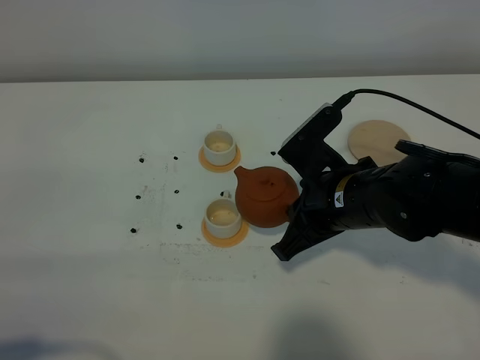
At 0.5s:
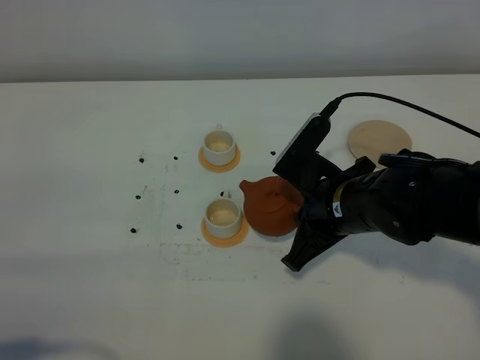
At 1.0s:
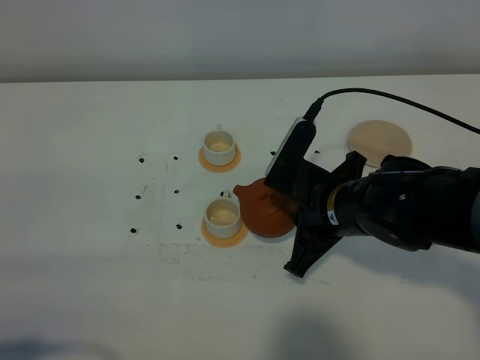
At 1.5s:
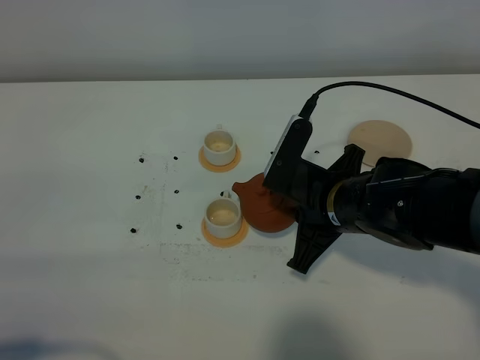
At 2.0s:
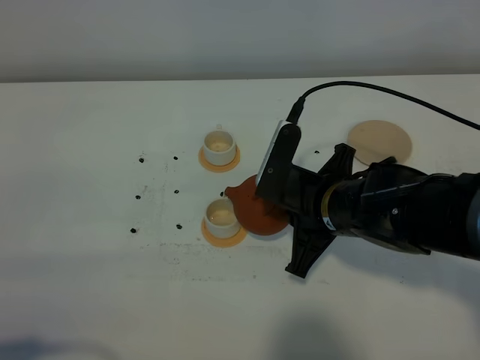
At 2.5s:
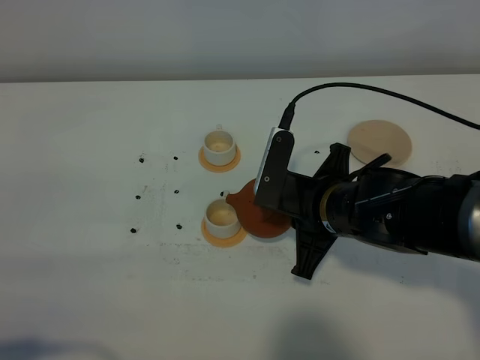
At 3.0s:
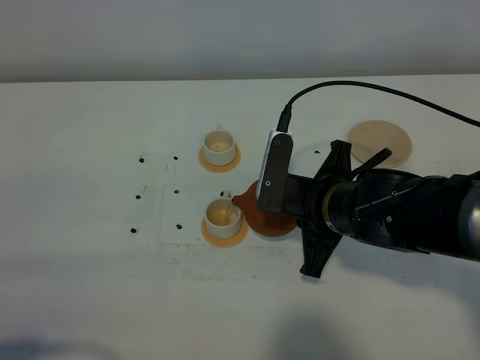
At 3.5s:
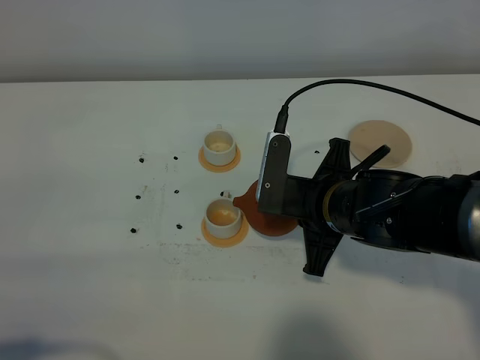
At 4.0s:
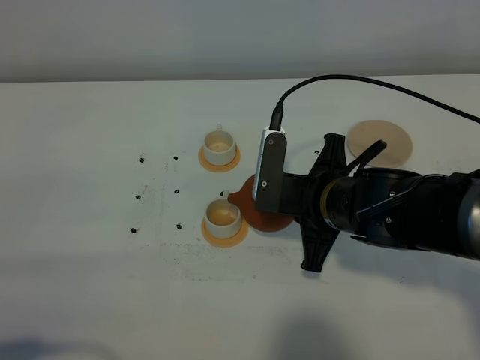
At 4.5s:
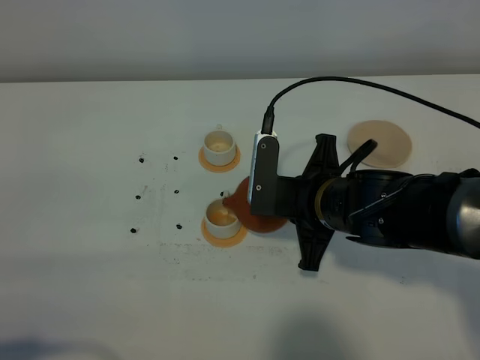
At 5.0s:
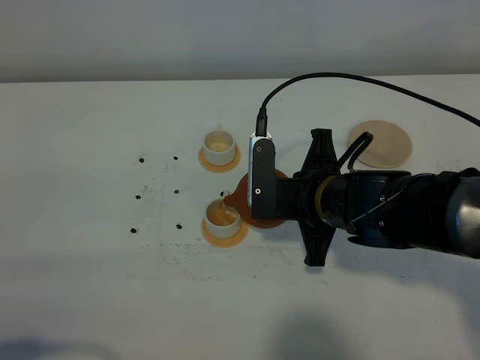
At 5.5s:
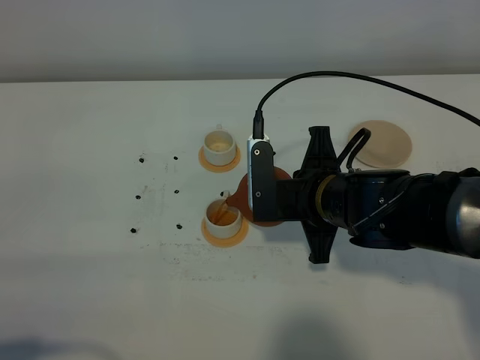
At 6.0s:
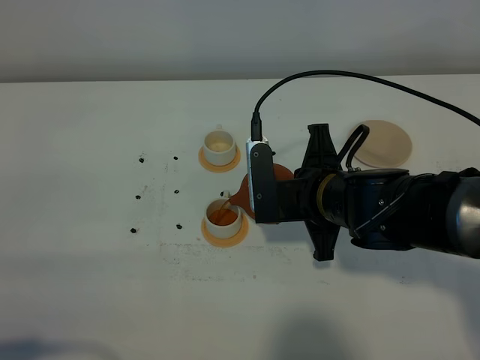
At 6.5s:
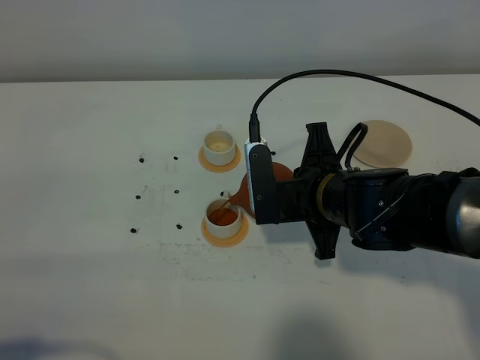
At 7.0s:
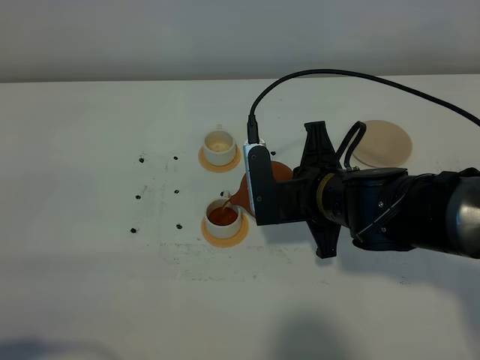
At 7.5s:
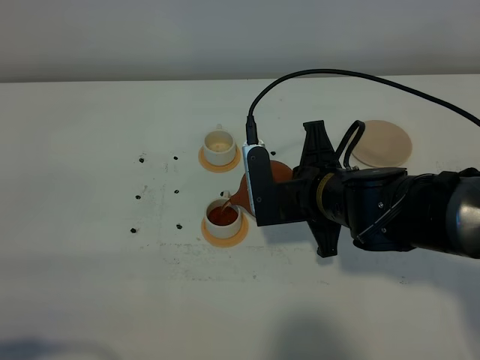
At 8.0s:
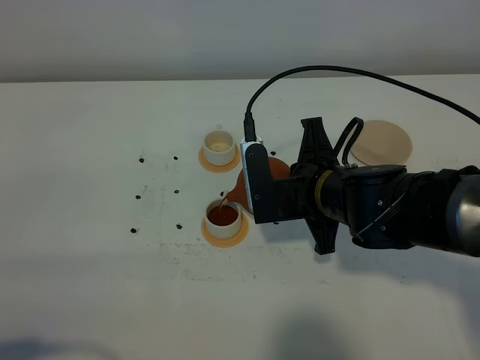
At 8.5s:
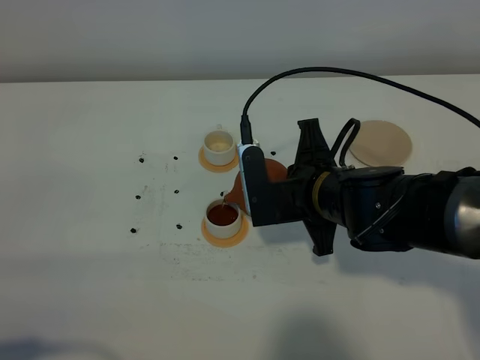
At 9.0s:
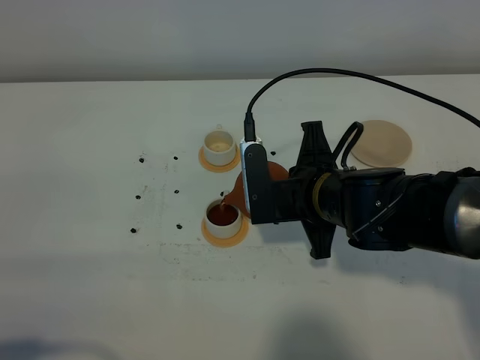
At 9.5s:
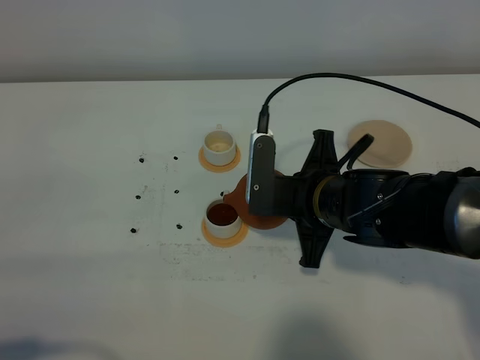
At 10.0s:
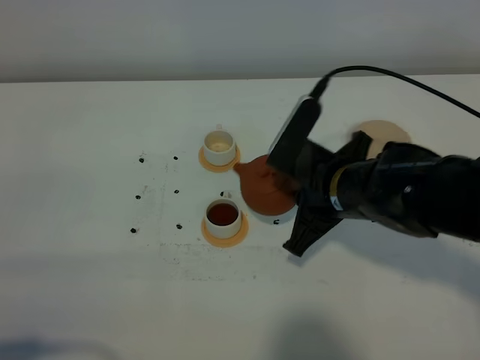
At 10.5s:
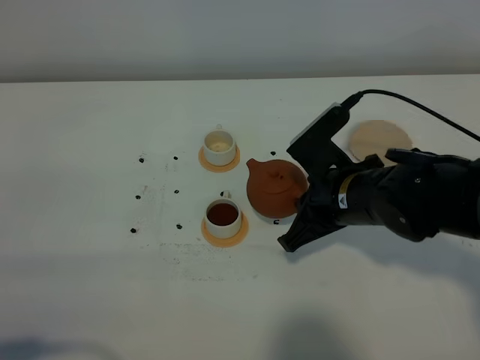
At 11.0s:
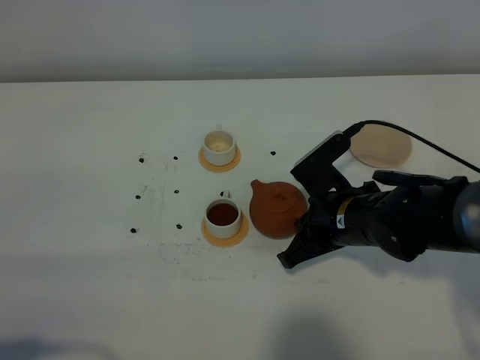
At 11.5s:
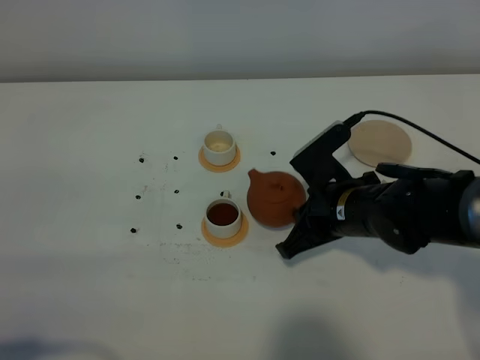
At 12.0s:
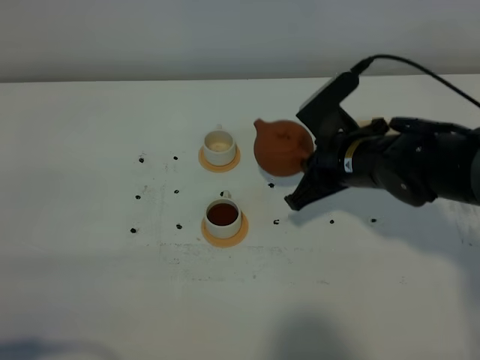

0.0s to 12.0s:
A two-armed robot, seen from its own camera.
Task of the whole recording: grasp the brown teapot and pour the tea into the two white teacups one by one, put the brown teapot back in its original place.
Step, 0.0s to 9.5s: Pour tea into the teacup with the right gripper.
2.0s to 4.0s: The grippers stay close to where they were, moving slightly.
4.0s to 6.0s: The grippers stay close to where they were, moving slightly.
6.0s to 8.0s: The two grippers keep their place.
10.0s to 12.0s: The right gripper heads forward, covering about 5 cm.

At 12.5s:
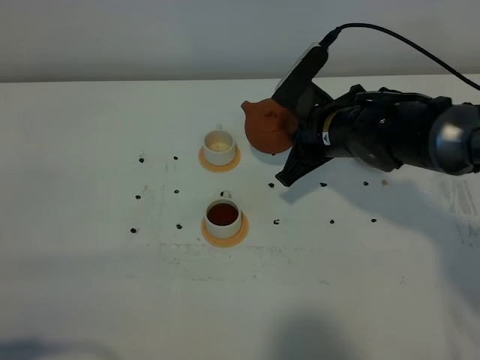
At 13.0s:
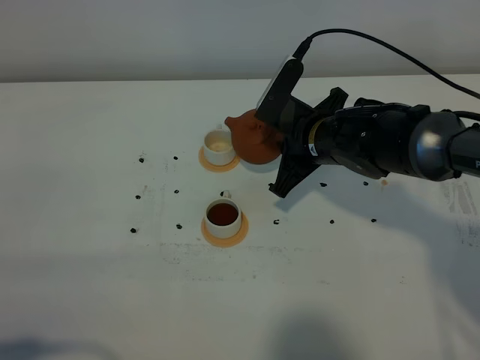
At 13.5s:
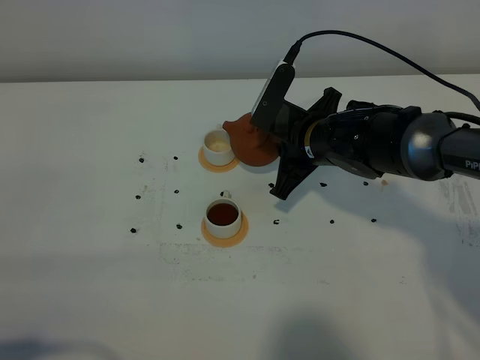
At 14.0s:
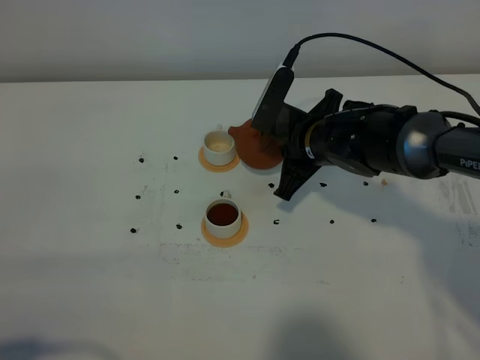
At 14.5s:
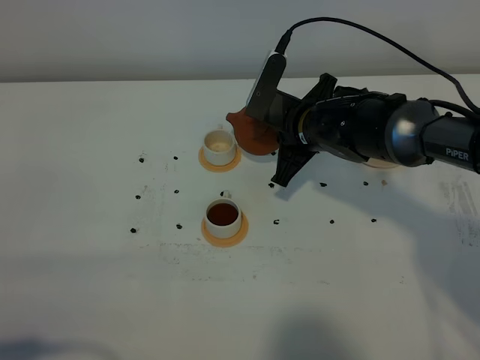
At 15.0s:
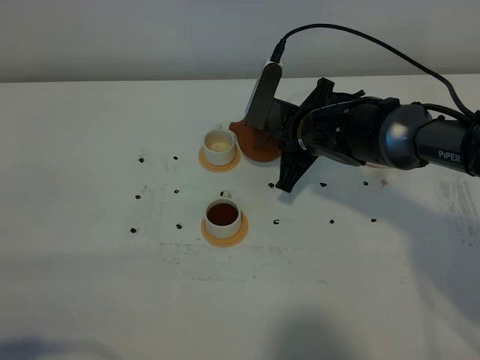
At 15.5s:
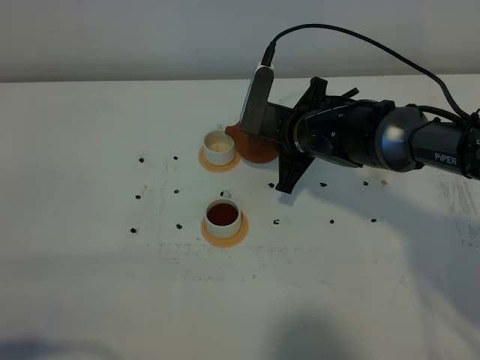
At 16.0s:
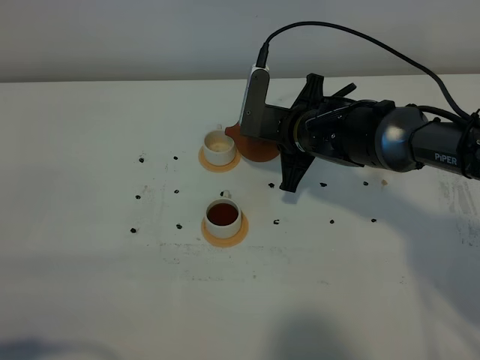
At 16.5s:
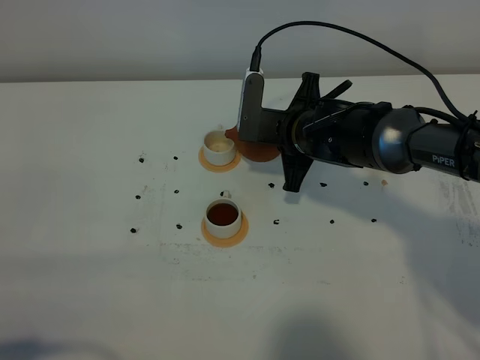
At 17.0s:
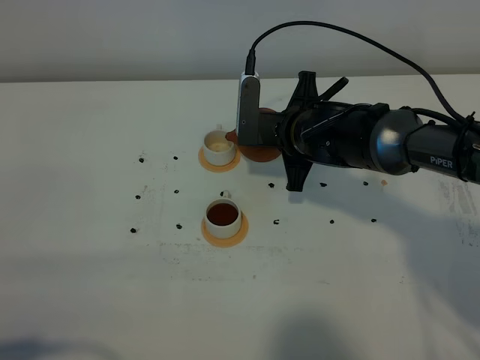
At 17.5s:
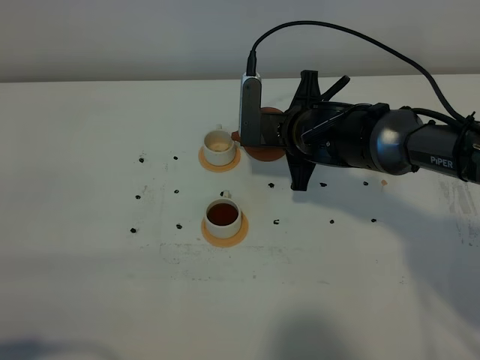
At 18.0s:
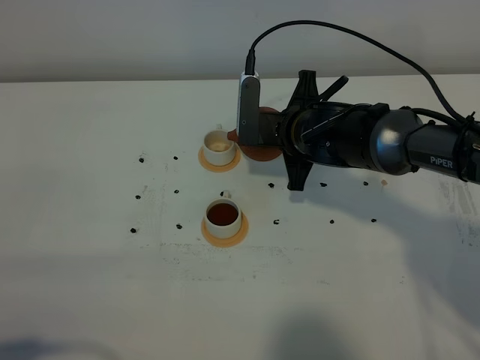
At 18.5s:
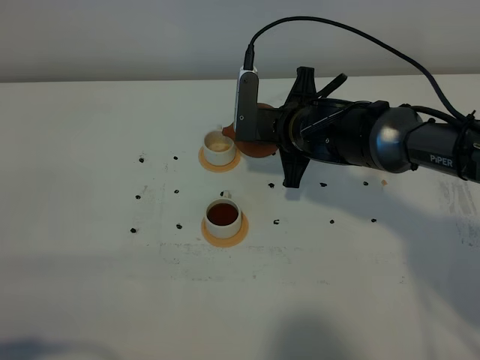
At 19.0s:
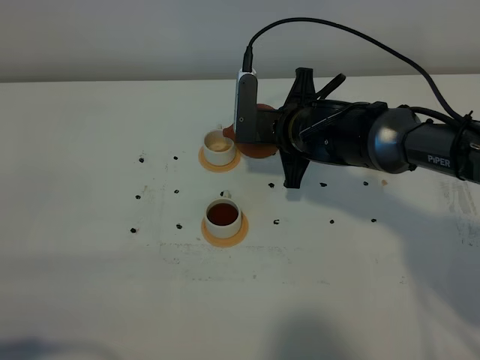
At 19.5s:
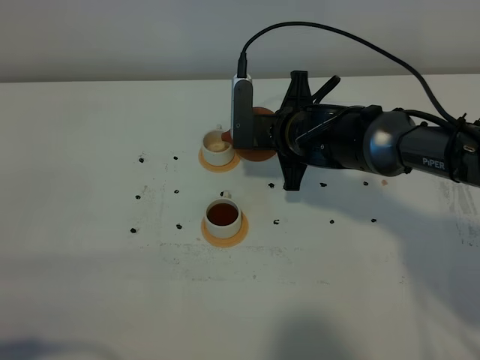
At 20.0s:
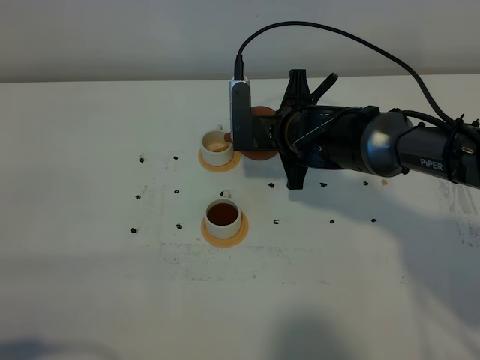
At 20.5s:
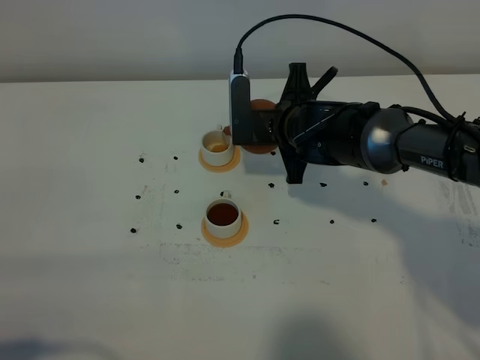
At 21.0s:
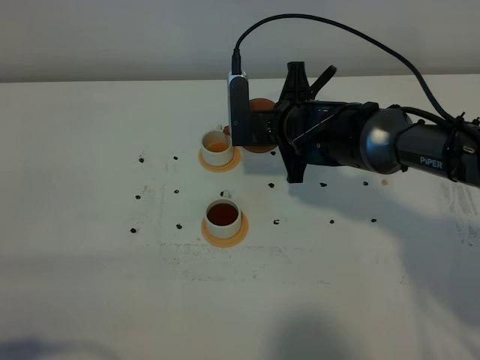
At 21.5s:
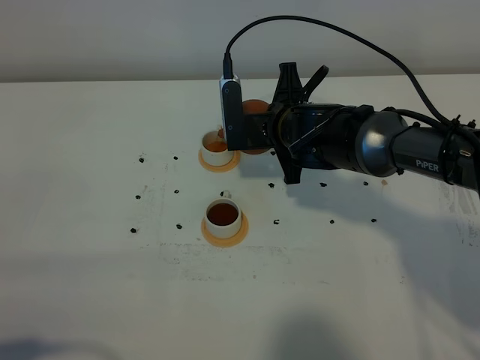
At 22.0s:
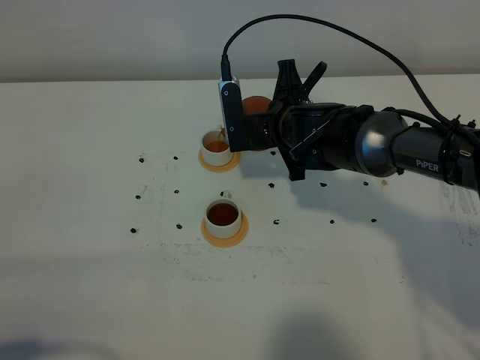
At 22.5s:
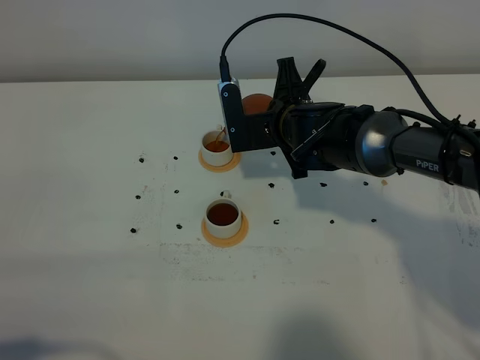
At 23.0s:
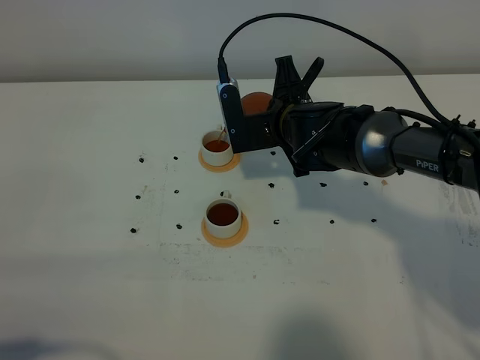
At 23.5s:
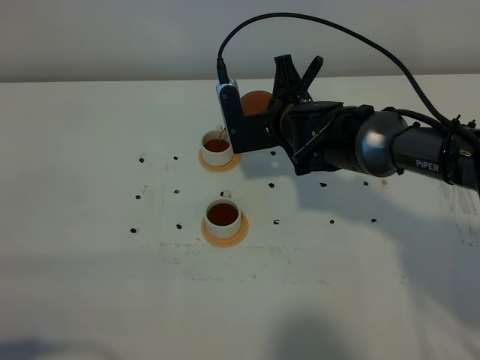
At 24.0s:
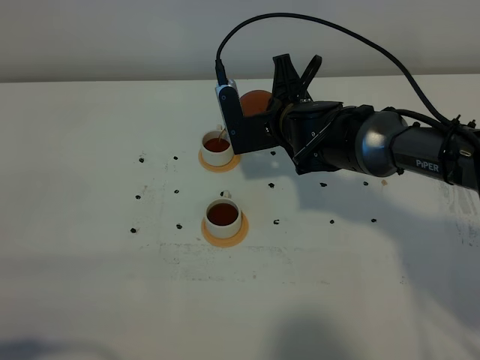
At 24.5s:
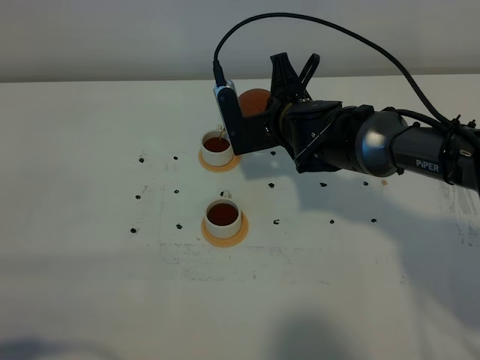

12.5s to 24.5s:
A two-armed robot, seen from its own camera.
Task of the whole recording: grasp the brown teapot and pour the tea into the two white teacups one by one, put the brown teapot back in its original place.
12.5s to 14.5s: The grippers move only a little.
14.5s to 16.5s: There are only small adjustments of the grippers.
16.5s to 20.5s: The grippers stay close to where they were, moving slightly.
20.5s to 24.5s: The grippers stay close to where they were, moving slightly.

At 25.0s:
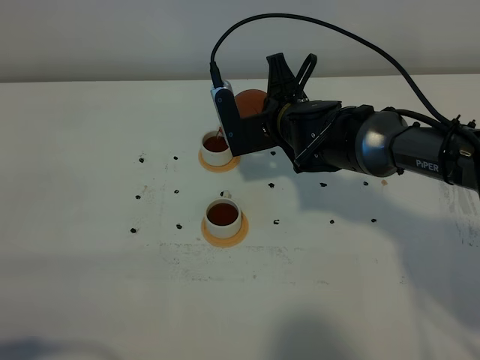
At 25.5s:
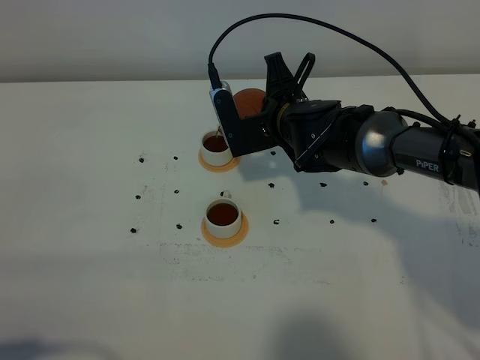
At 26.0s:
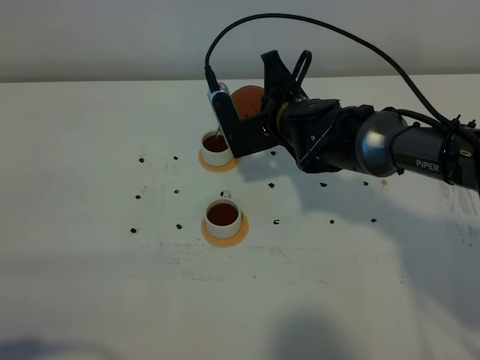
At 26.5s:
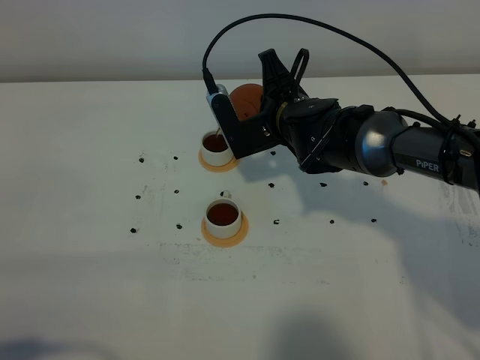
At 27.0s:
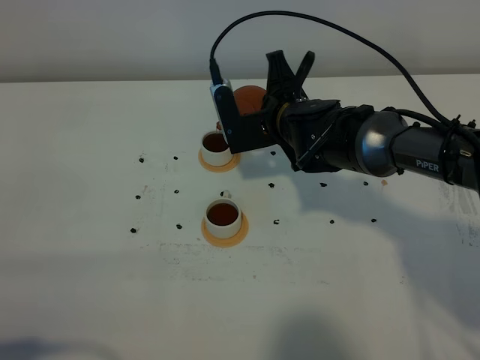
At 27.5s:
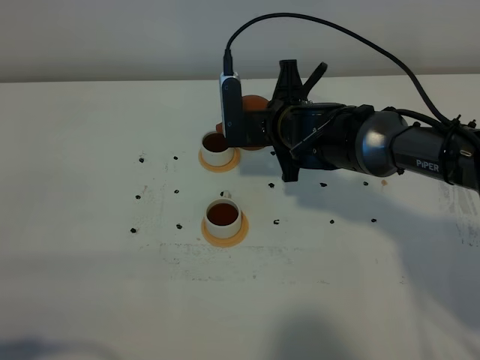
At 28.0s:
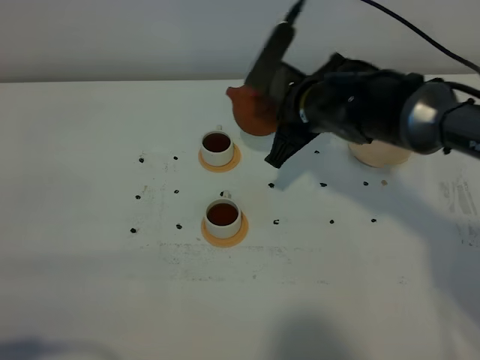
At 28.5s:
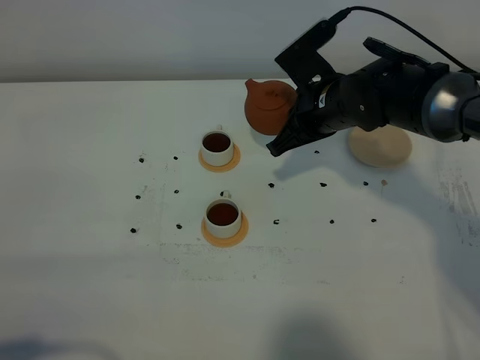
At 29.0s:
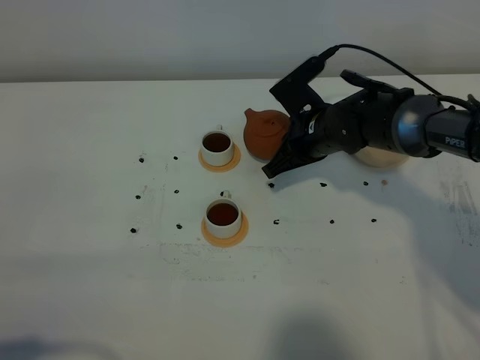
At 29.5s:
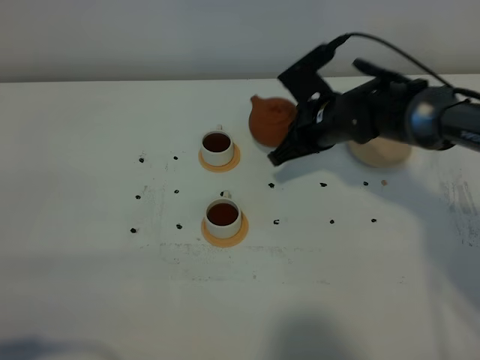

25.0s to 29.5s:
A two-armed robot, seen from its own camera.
Task of the whole recording: grasp the brown teapot and pour the tea into the two white teacups one by one, put the brown teapot back in its original place.
Step, 25.0s to 27.5s: Pour tea into the teacup with the right gripper.
25.0s to 27.0s: The grippers make only small movements.
27.0s to 29.5s: The right gripper shifts approximately 5 cm to the right.
